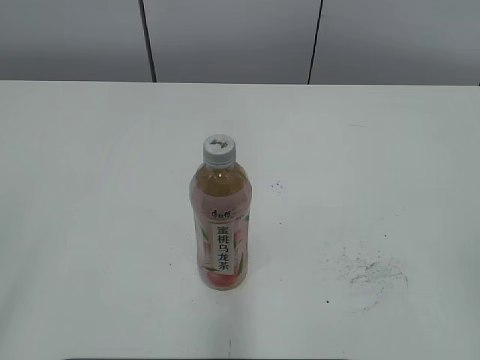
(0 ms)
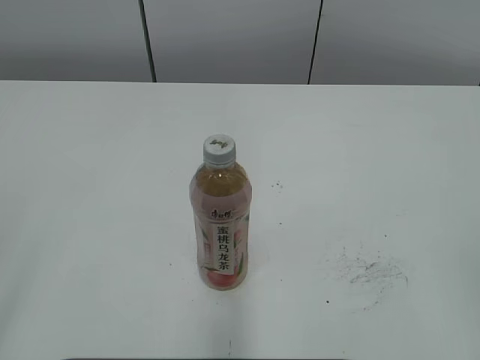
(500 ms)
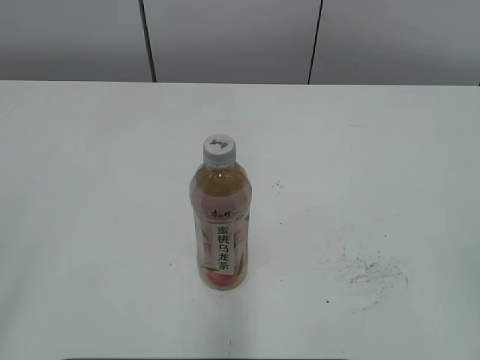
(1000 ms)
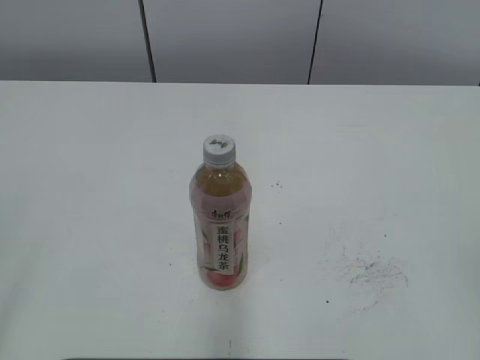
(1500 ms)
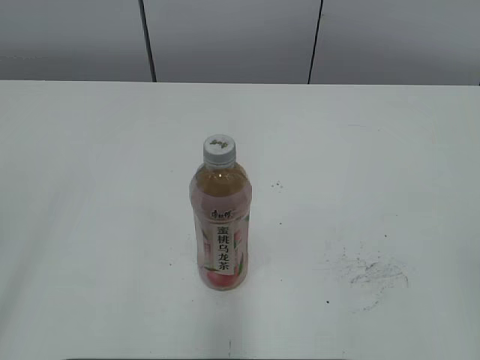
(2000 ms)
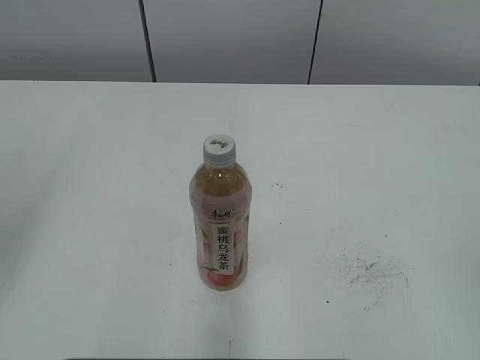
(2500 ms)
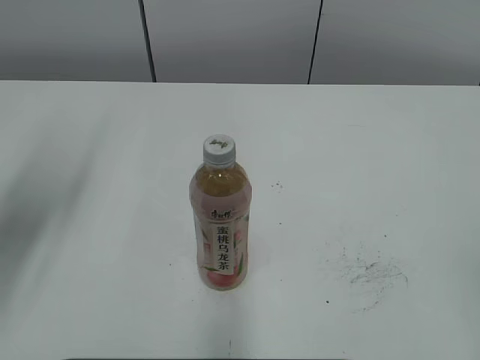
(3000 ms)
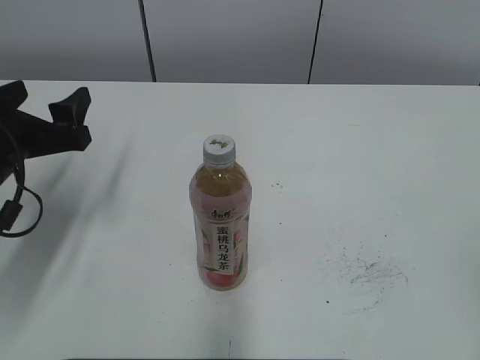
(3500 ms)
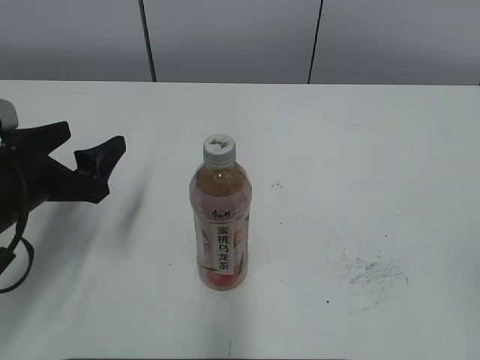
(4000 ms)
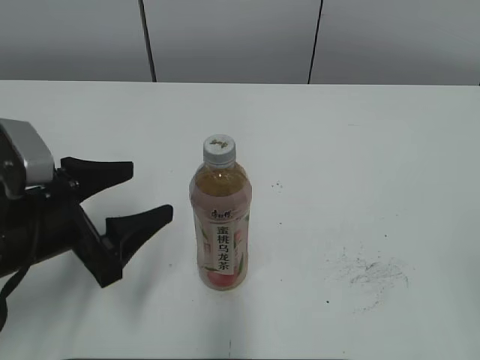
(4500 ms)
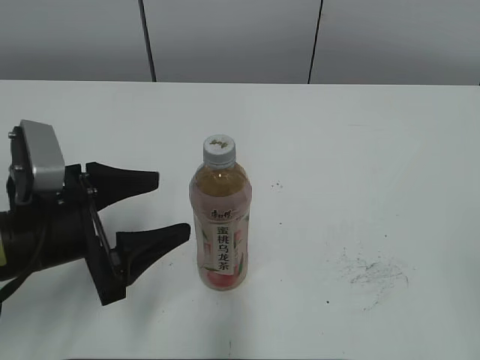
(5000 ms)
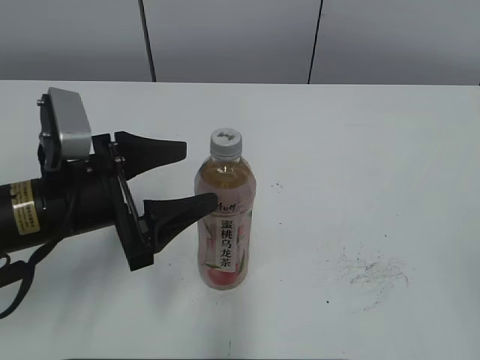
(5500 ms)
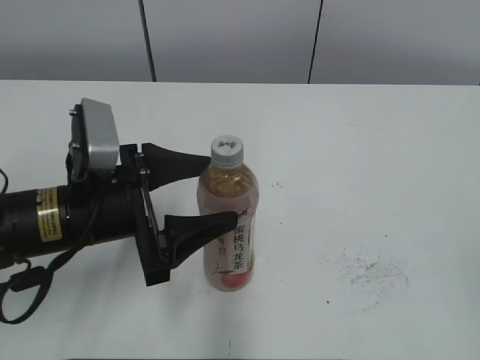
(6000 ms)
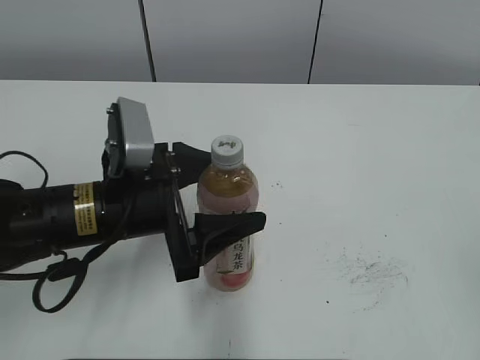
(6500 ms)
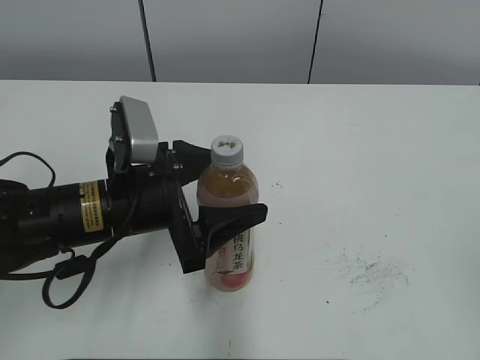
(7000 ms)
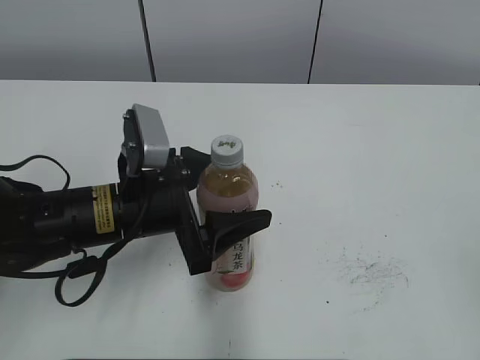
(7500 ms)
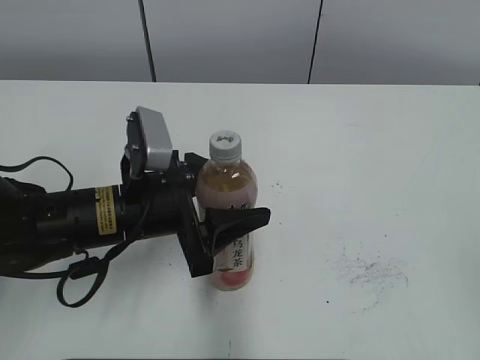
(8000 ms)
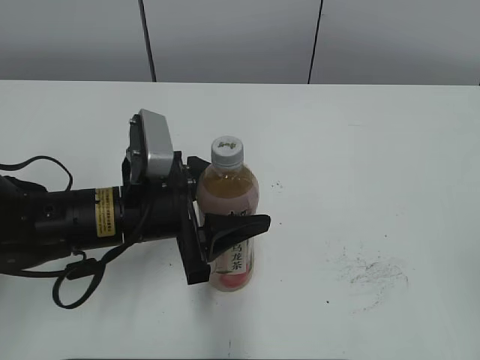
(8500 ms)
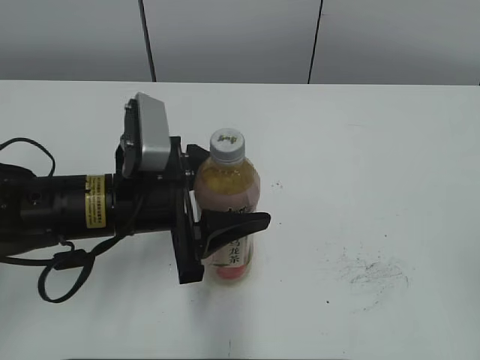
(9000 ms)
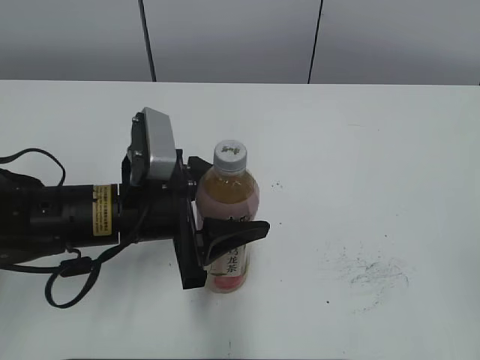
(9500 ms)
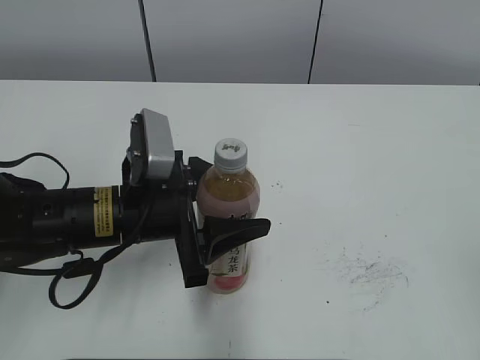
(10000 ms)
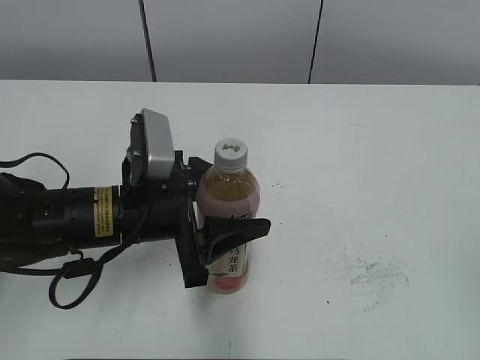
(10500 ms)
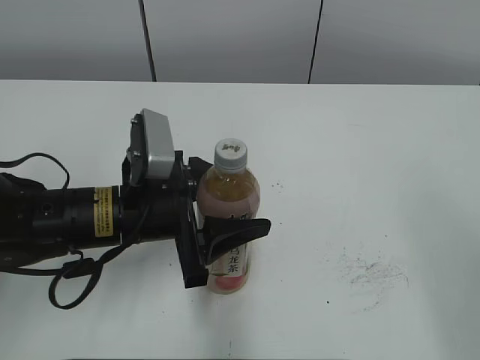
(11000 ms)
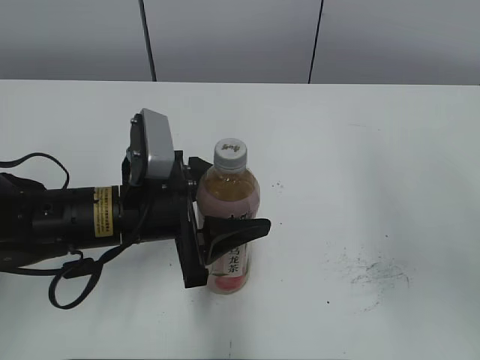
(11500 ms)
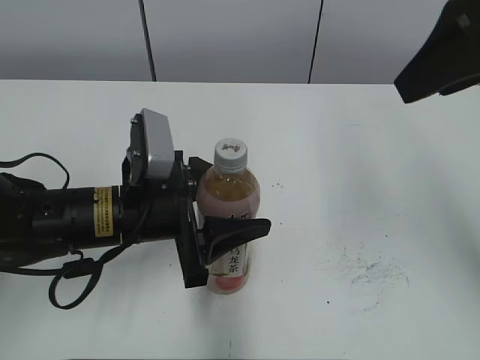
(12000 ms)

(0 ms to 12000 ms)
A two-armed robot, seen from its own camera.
Step, 0 ms - 8000 ms: Grab the Peach Oolong Tea with the left hand.
2000 ms - 4000 ms: The left gripper goes about 30 cm forward and downward.
4000 ms - 6000 ms: The left gripper goes roughly 10 cm to the right.
6000 ms - 8000 ms: The left gripper closes.
8000 ms - 10000 ms: The grippers move only a little.
10000 ms - 12000 ms: The right gripper travels forward and to the left by about 25 cm.

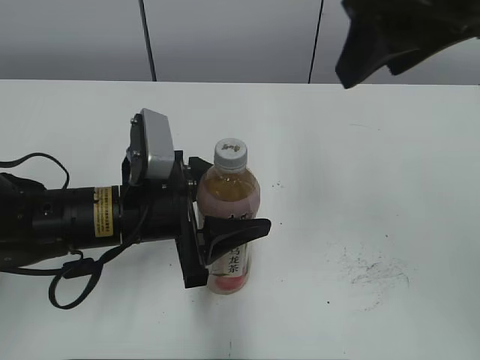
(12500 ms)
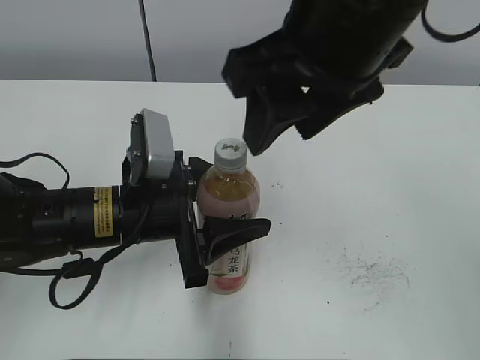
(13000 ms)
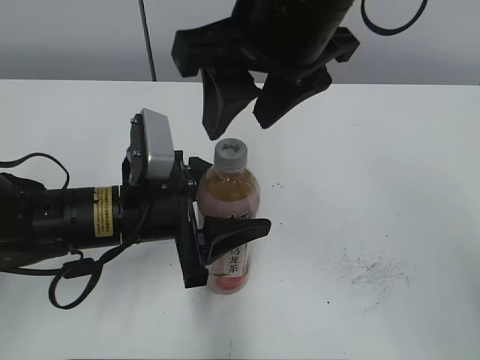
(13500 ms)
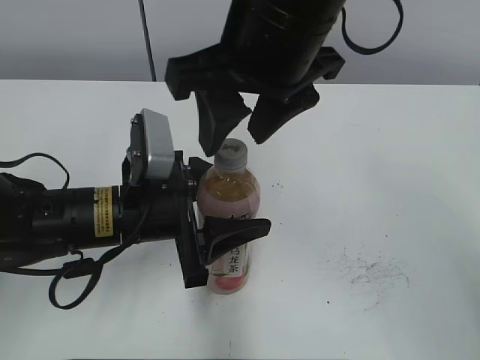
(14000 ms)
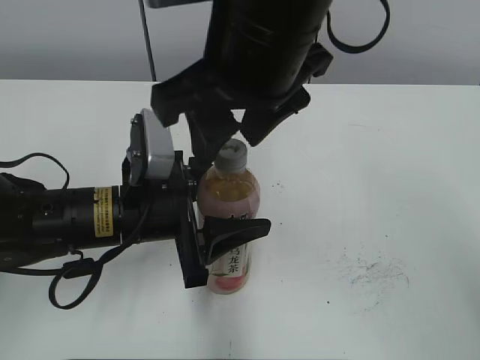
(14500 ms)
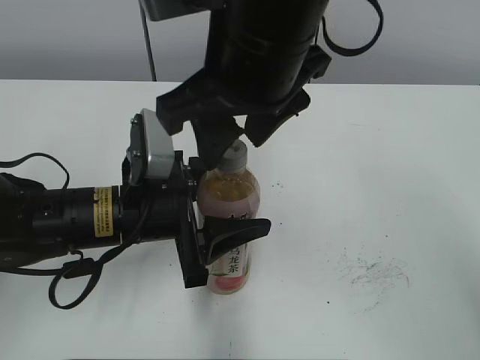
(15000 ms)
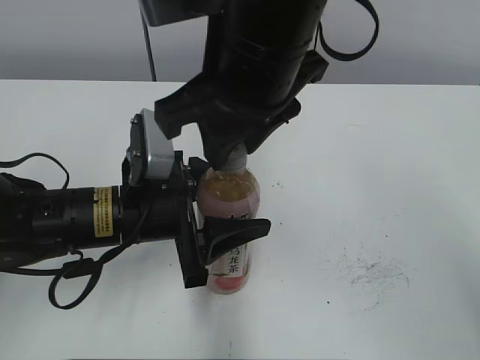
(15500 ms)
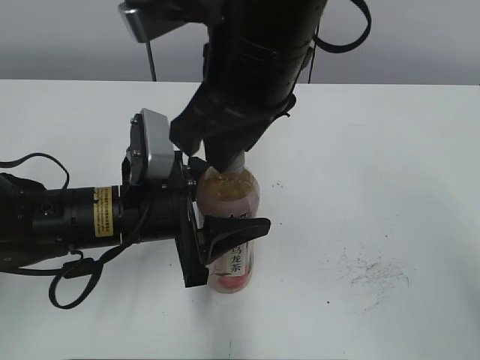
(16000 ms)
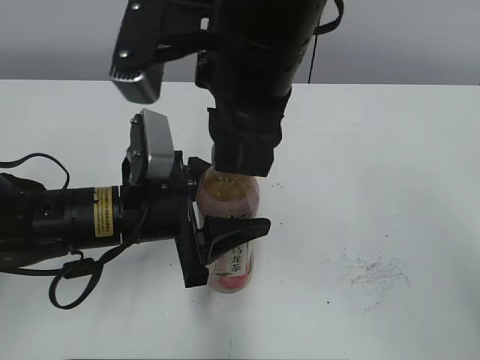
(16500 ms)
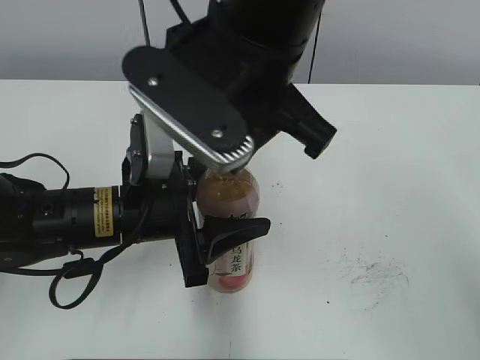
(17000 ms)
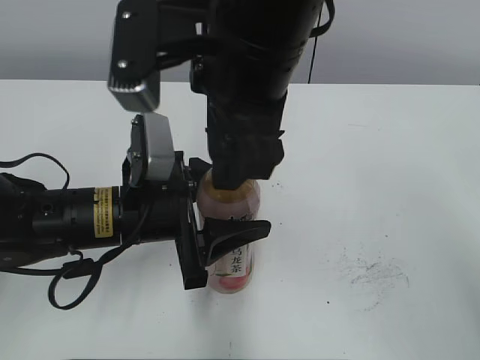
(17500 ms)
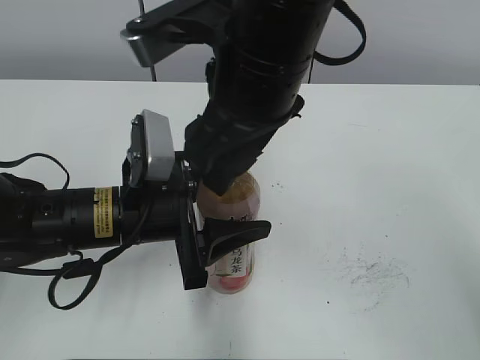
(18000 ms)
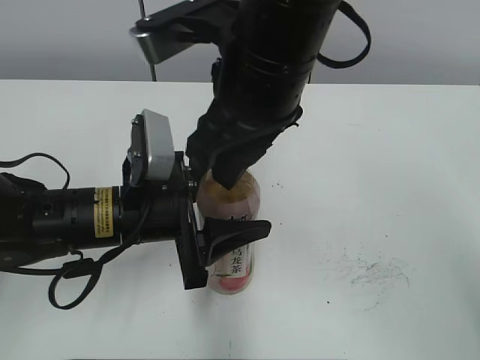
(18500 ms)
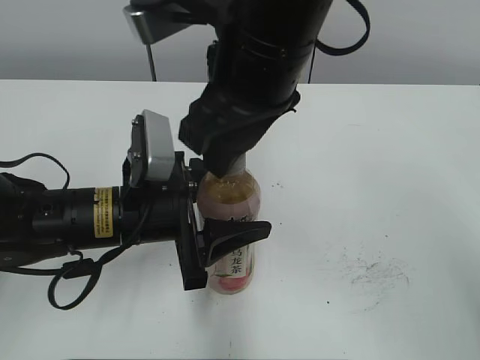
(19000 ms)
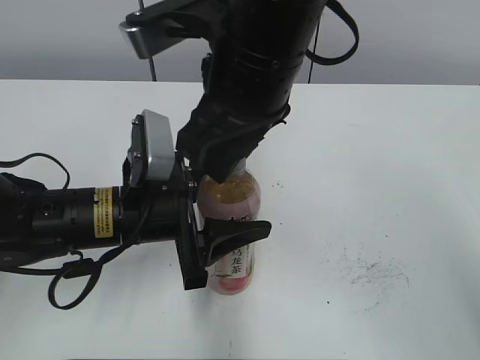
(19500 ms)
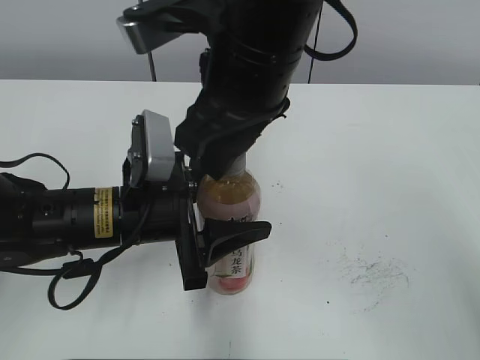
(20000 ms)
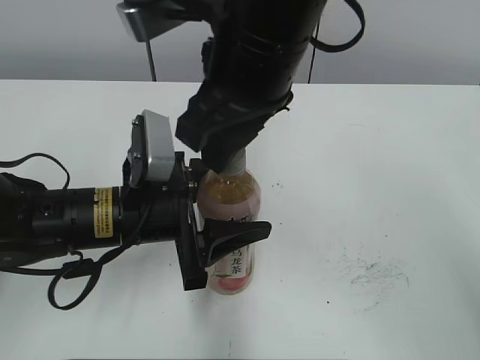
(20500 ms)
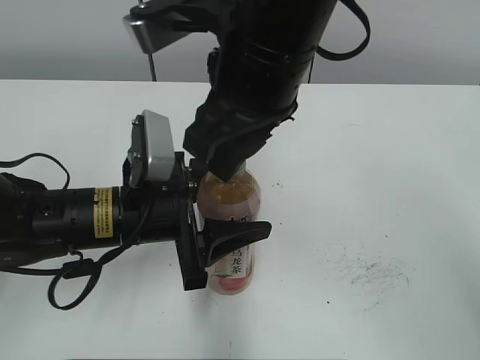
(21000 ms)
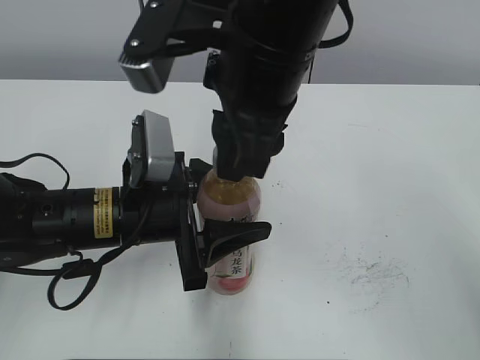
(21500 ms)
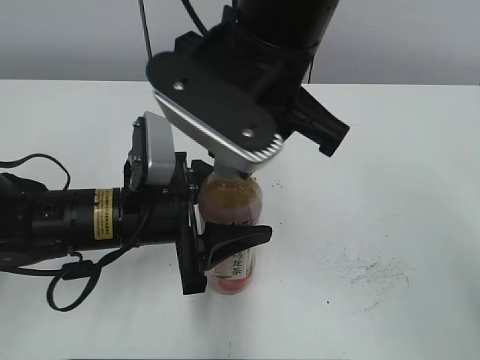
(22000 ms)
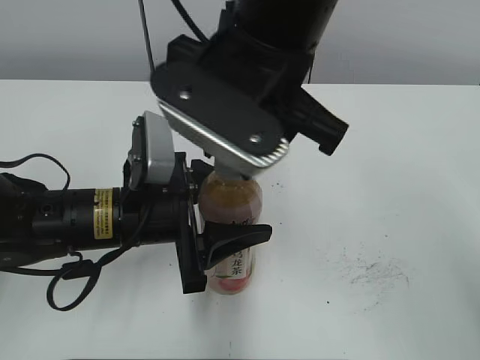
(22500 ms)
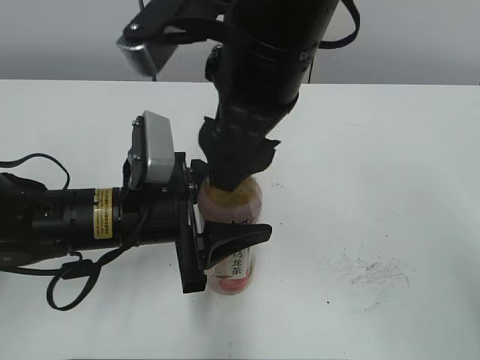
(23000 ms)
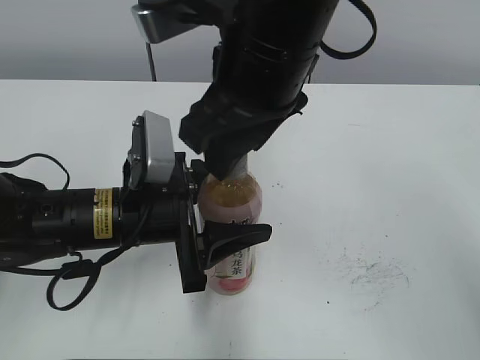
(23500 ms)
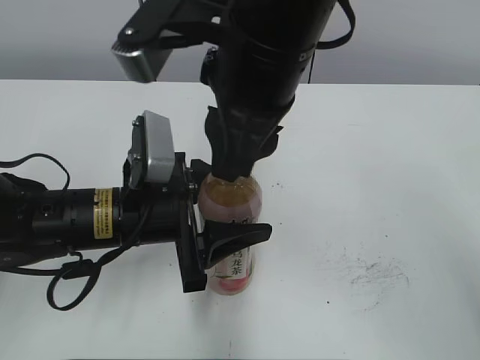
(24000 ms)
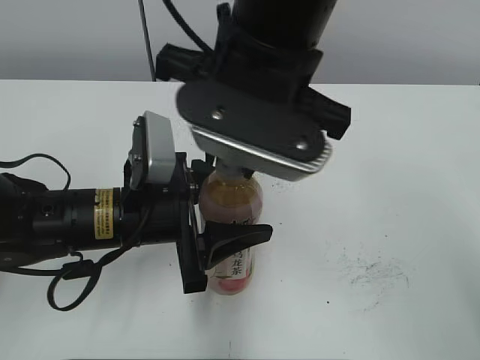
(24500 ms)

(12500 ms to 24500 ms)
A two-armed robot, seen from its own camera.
Step, 12500 ms - 15000 ms: Move the Peach Oolong Tea from left to right.
12500 ms - 14500 ms: The right gripper is displaced to the left and downward by roughly 15 cm.
14500 ms - 16500 ms: The right gripper closes up.
16500 ms - 18500 ms: The right gripper opens, then closes again.
18500 ms - 20500 ms: The two grippers keep their place.
22500 ms - 24500 ms: The right gripper opens, then closes again.

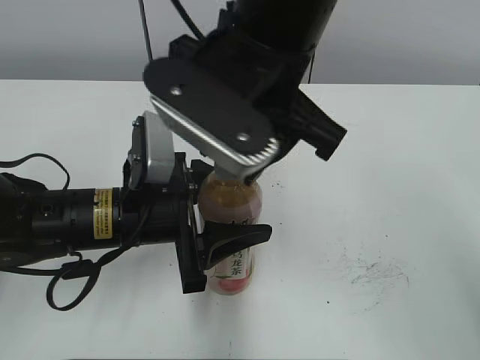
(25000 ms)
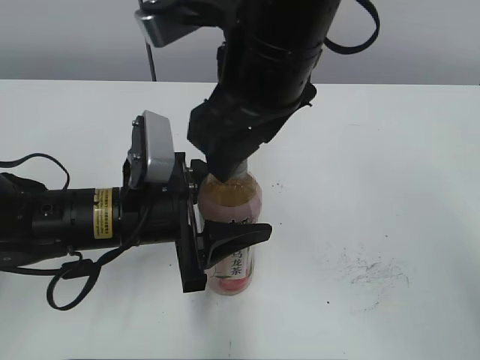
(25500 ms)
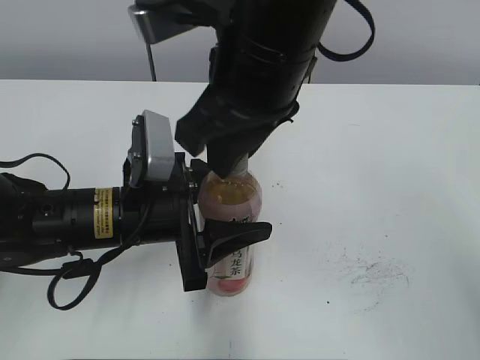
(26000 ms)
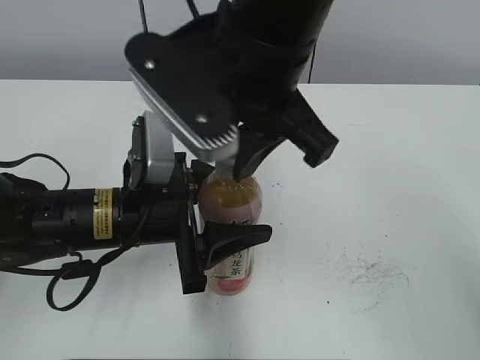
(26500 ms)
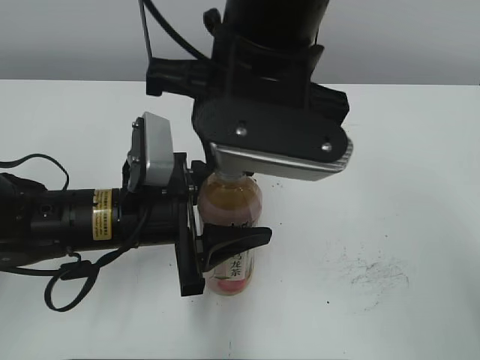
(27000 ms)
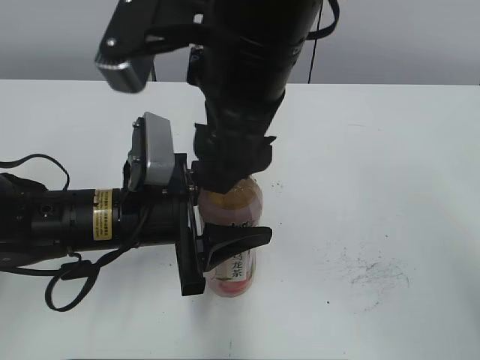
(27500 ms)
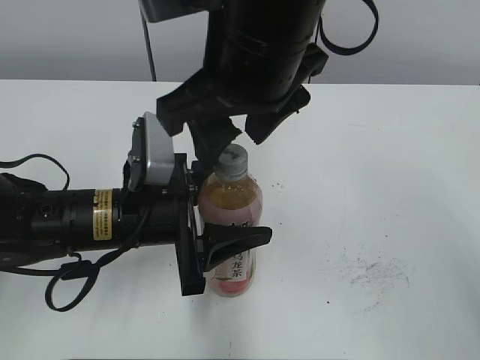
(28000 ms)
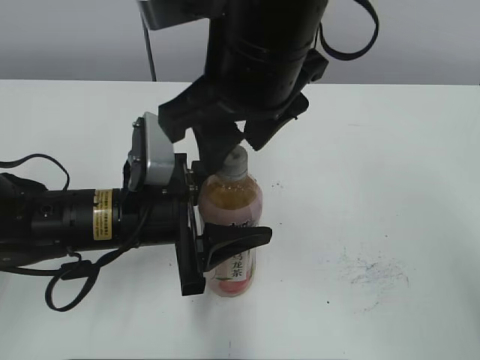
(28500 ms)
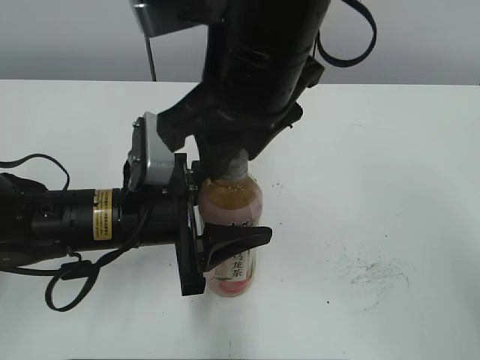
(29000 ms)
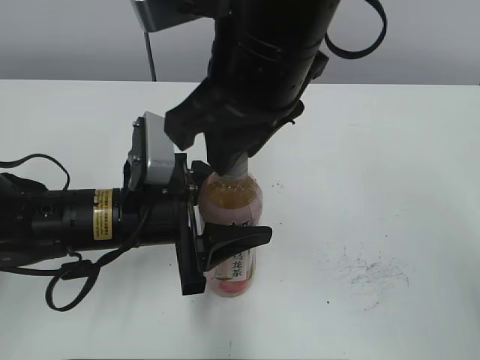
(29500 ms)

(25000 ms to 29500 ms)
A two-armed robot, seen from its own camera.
25000 ms - 27000 ms: The right gripper closes up.
27000 ms - 29500 ms: The right gripper opens, then closes once more.
